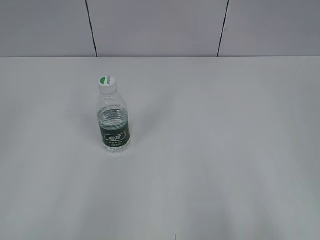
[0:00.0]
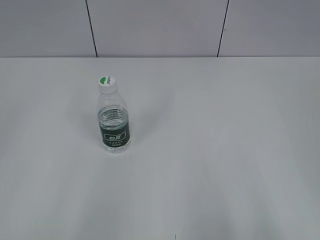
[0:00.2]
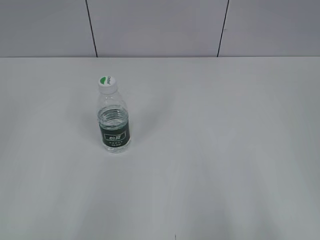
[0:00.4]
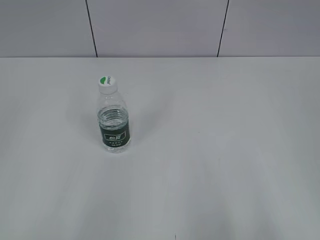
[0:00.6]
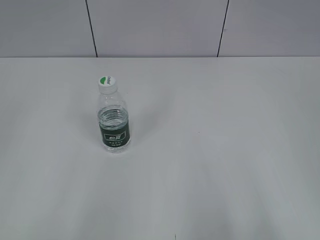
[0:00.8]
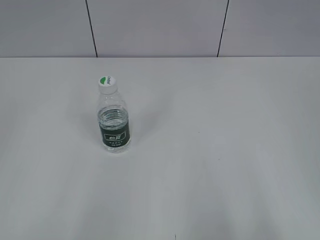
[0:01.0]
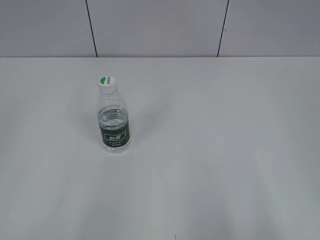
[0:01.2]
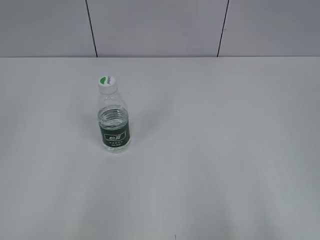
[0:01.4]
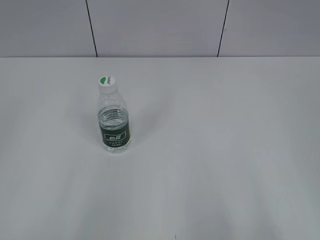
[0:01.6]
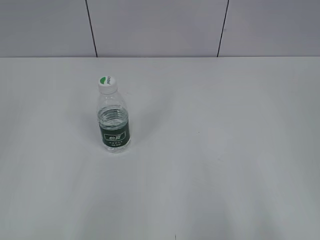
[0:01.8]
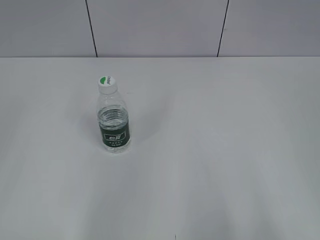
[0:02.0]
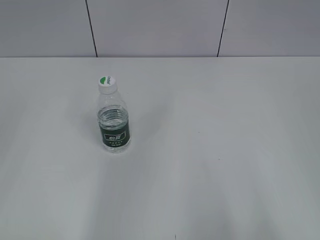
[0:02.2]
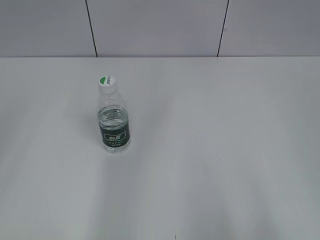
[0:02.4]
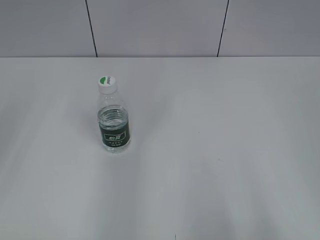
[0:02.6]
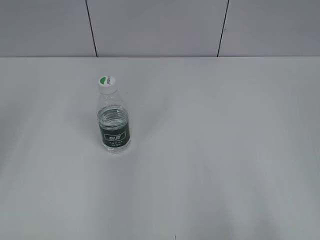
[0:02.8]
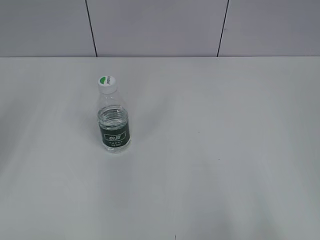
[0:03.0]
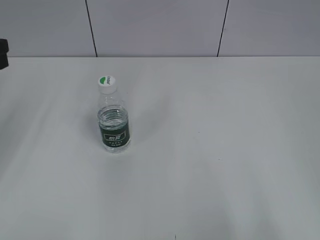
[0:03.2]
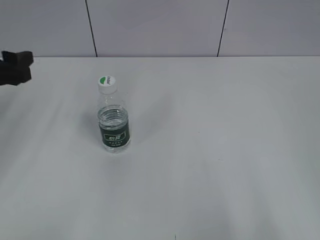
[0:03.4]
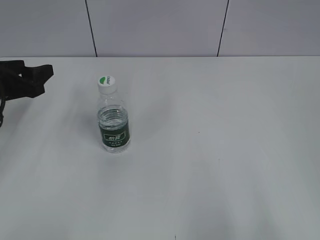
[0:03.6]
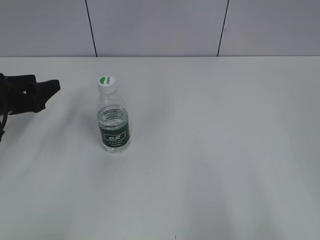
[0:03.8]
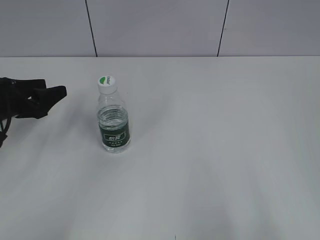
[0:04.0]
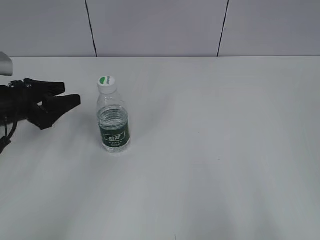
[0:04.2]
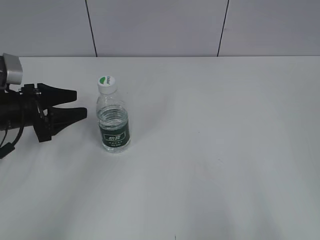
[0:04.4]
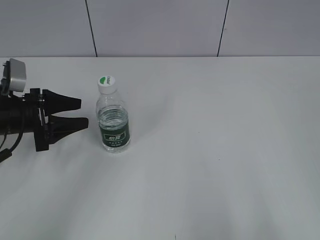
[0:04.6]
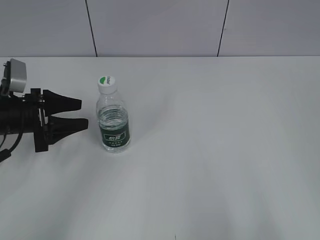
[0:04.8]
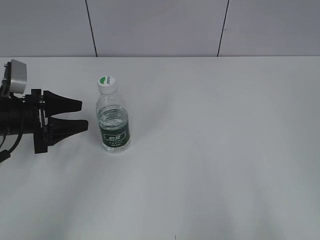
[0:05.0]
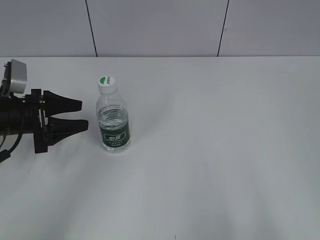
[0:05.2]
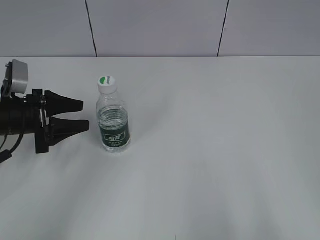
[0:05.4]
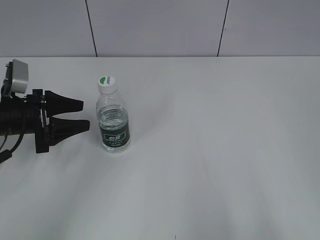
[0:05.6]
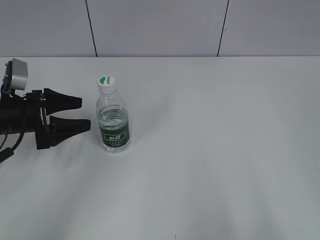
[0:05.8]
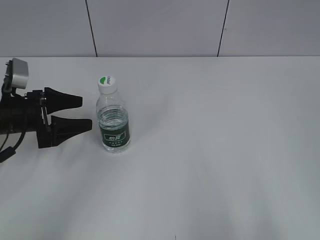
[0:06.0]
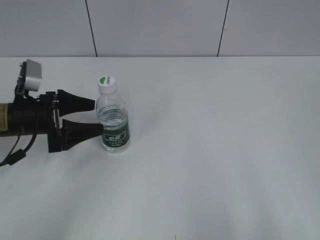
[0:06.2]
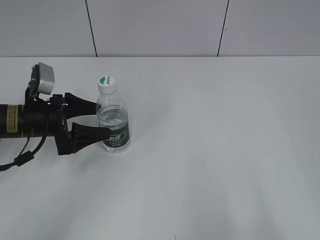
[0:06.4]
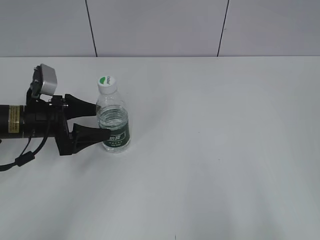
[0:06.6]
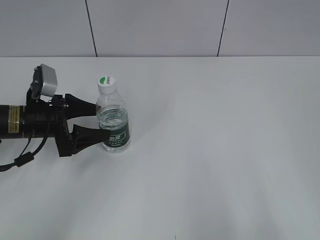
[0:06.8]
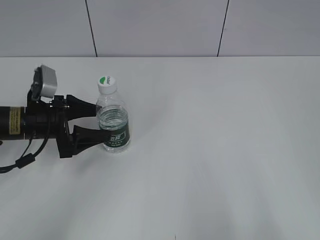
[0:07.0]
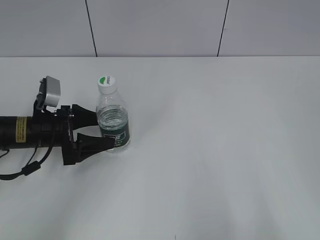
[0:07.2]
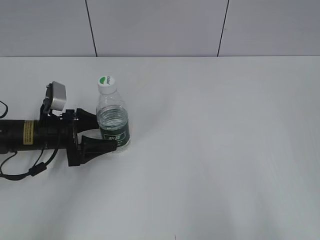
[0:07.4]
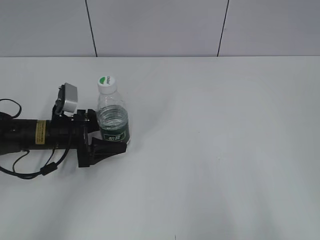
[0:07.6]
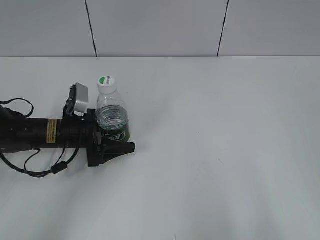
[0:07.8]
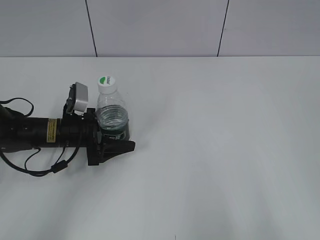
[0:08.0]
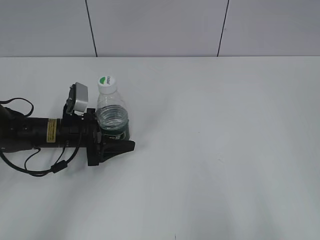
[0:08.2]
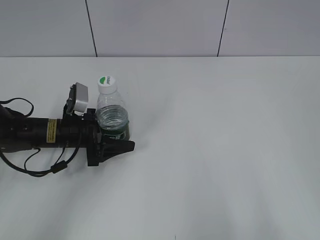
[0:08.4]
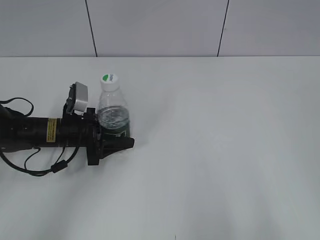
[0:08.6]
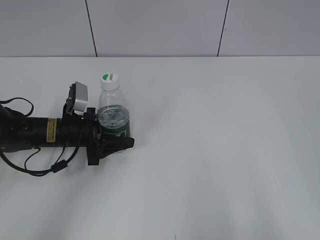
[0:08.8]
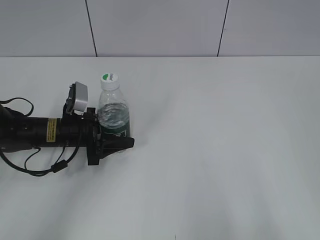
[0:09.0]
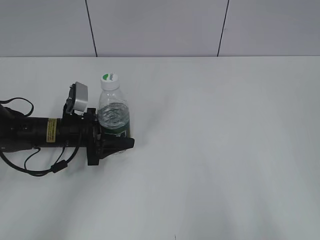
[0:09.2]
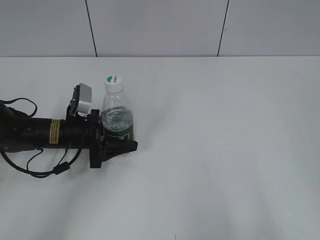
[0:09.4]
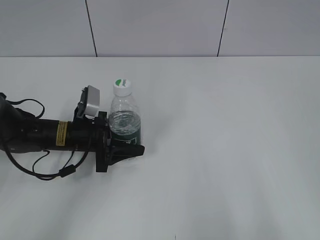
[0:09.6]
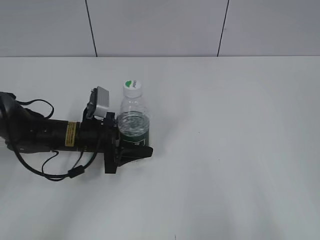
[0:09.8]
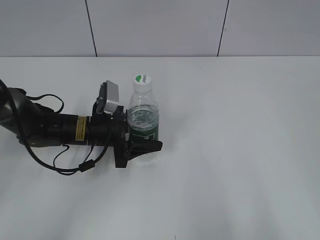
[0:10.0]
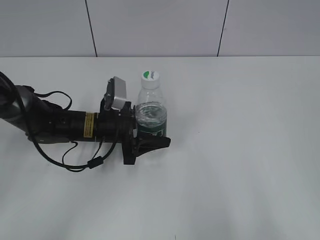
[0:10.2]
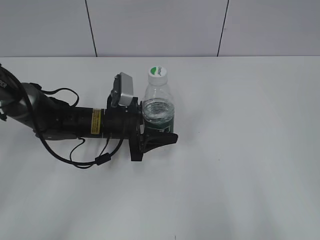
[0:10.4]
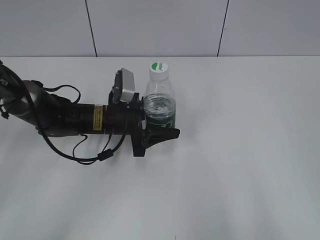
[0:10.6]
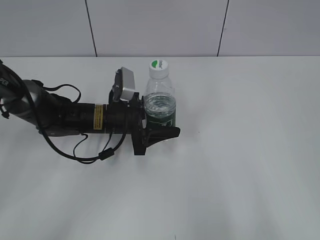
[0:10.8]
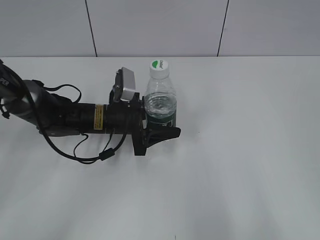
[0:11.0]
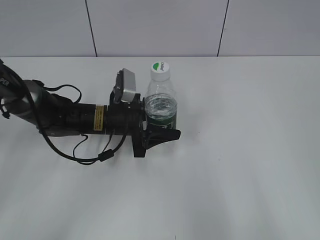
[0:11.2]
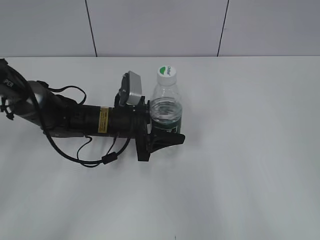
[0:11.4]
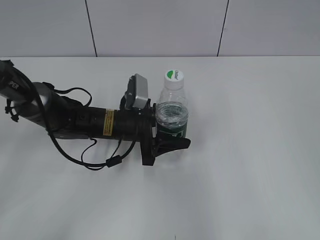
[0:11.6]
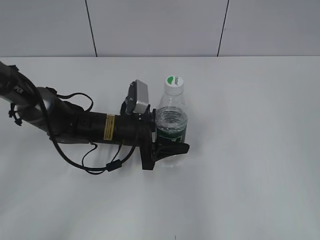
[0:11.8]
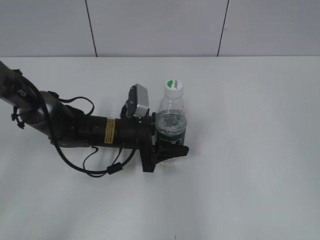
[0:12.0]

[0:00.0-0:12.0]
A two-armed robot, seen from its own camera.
Step, 0:00.0 to 0:08.8: Grasp the bottle and move it to the center of the table with the left gripper.
0:03.0 to 0:04.4: The left gripper heads downward and forward, covering some 20 cm.
0:04.4 to 0:06.0: The left gripper opens its fingers.
0:06.0 to 0:07.6: The left gripper moves downward and to the right, about 10 cm.
0:07.6 to 0:09.0: The left gripper closes.
0:09.0 to 0:10.4: The left gripper moves to the right, approximately 10 cm.
0:10.4 to 0:12.0: The right gripper goes roughly 10 cm forward.

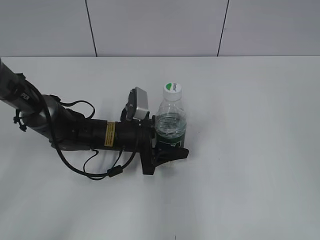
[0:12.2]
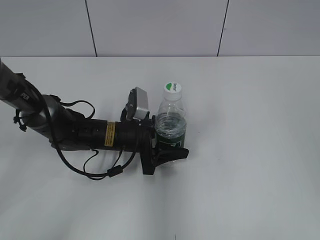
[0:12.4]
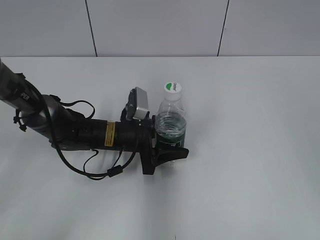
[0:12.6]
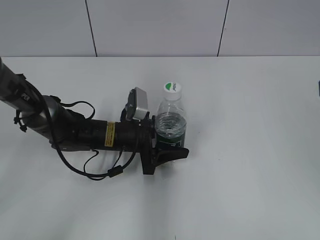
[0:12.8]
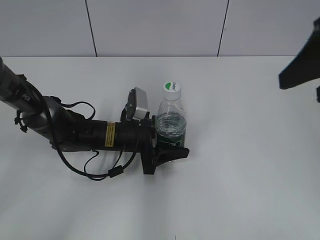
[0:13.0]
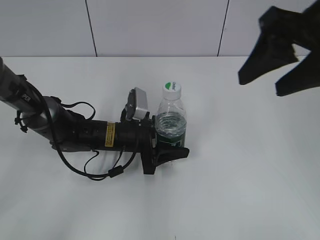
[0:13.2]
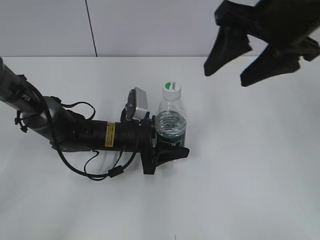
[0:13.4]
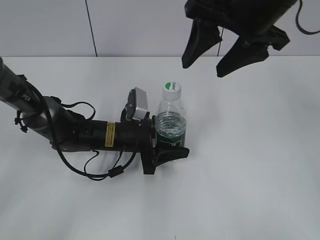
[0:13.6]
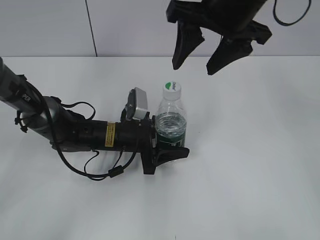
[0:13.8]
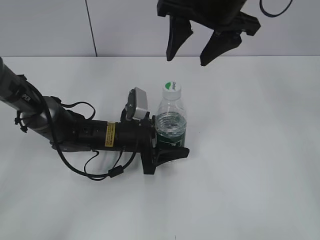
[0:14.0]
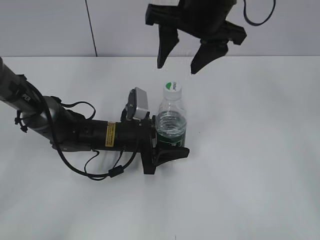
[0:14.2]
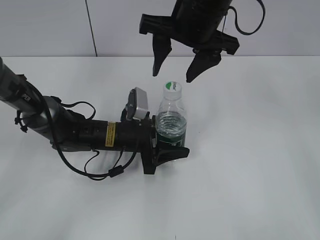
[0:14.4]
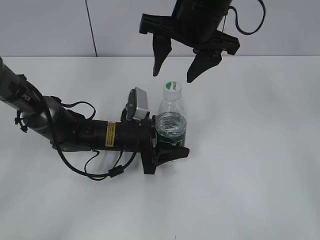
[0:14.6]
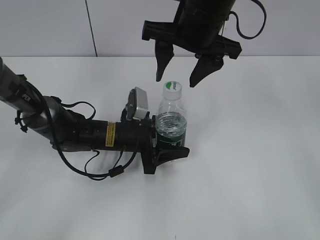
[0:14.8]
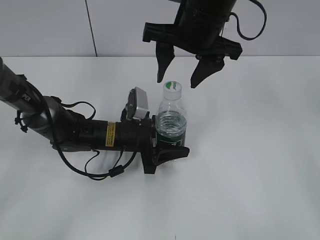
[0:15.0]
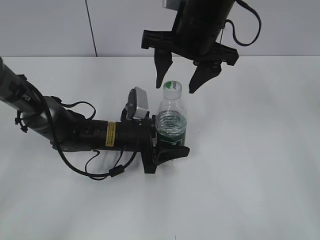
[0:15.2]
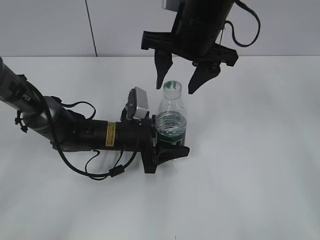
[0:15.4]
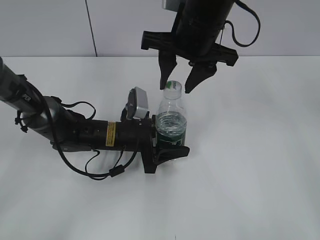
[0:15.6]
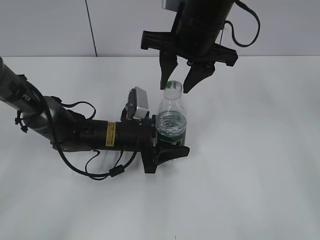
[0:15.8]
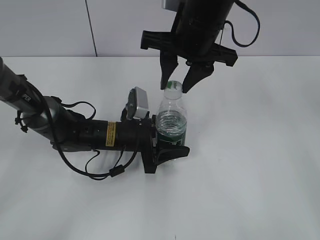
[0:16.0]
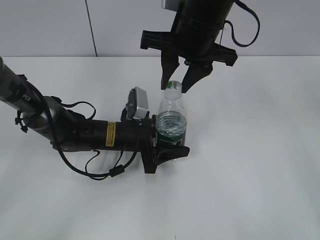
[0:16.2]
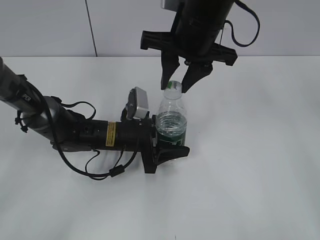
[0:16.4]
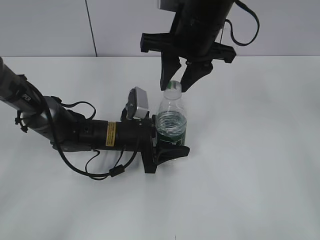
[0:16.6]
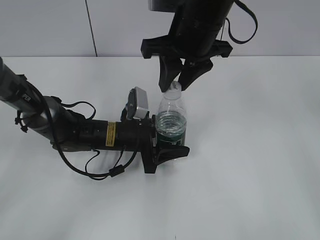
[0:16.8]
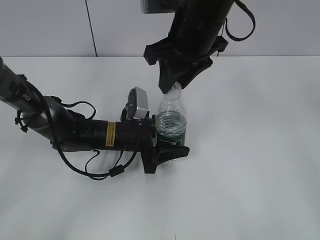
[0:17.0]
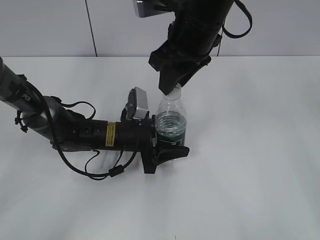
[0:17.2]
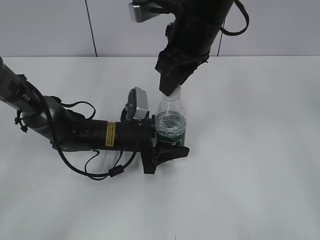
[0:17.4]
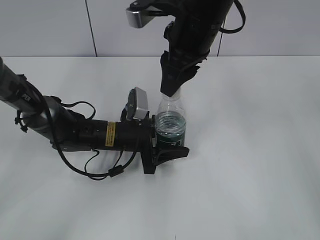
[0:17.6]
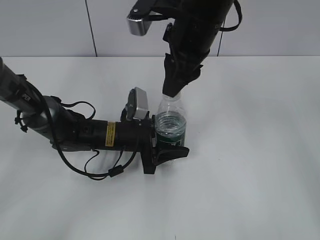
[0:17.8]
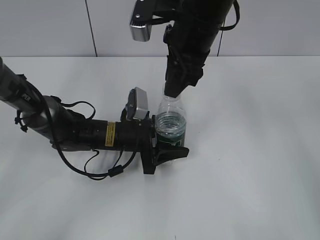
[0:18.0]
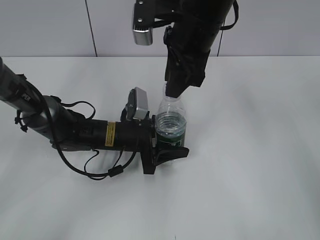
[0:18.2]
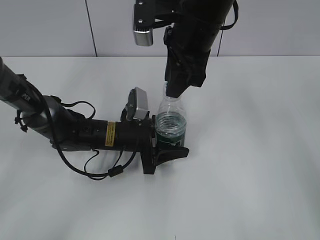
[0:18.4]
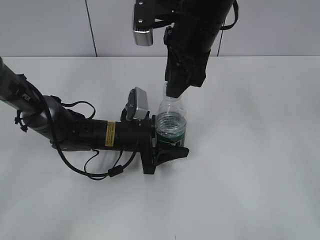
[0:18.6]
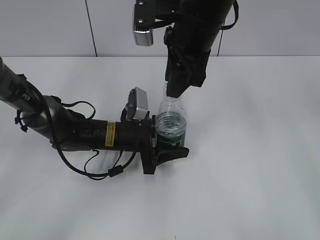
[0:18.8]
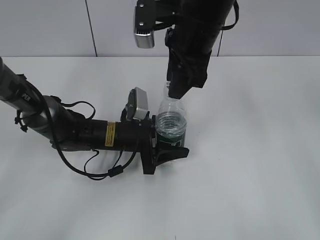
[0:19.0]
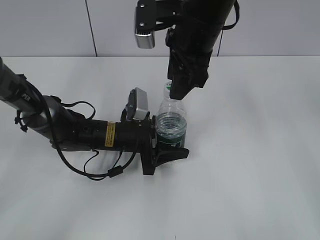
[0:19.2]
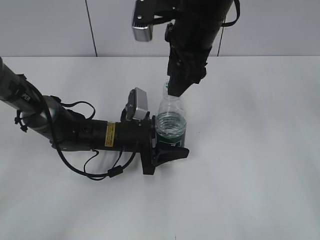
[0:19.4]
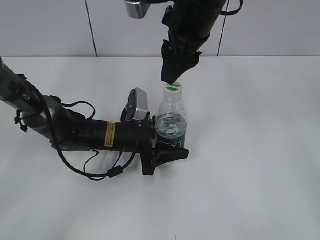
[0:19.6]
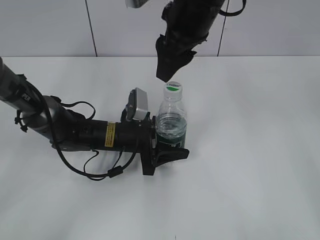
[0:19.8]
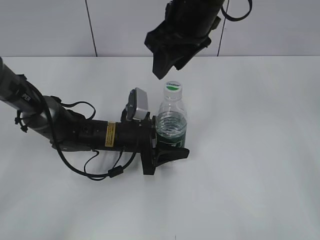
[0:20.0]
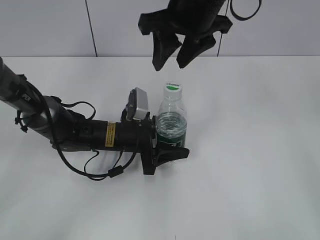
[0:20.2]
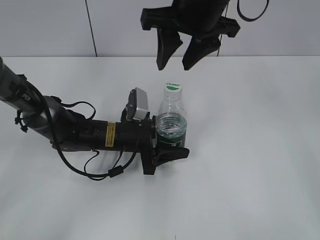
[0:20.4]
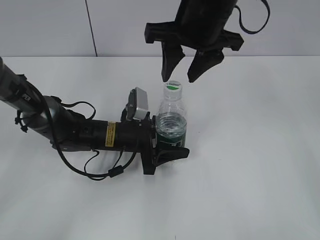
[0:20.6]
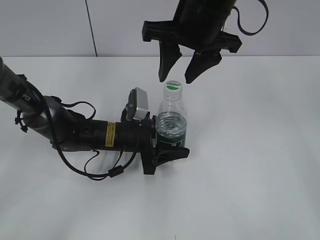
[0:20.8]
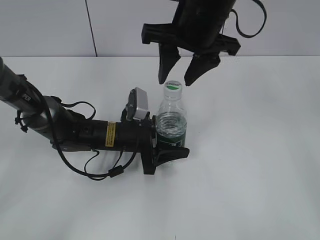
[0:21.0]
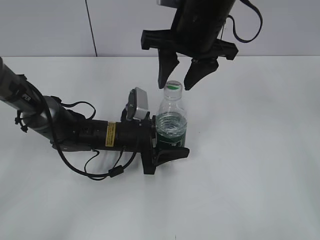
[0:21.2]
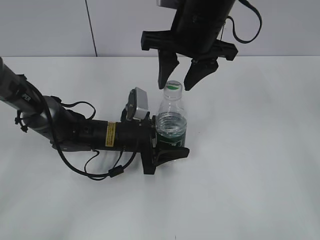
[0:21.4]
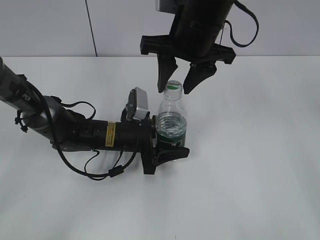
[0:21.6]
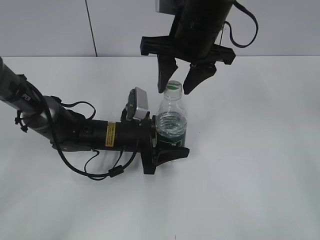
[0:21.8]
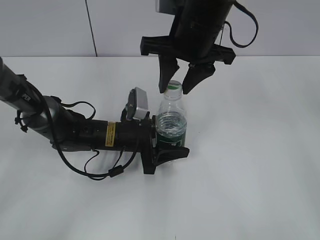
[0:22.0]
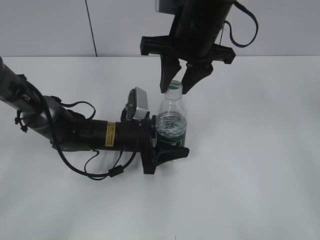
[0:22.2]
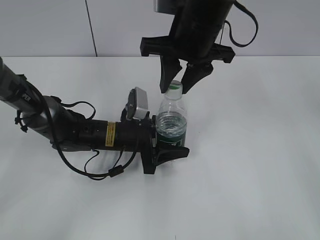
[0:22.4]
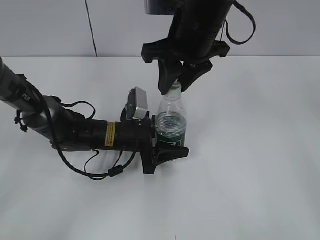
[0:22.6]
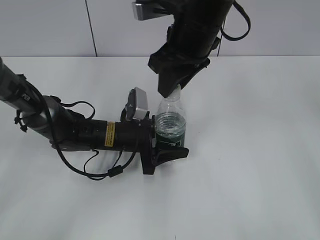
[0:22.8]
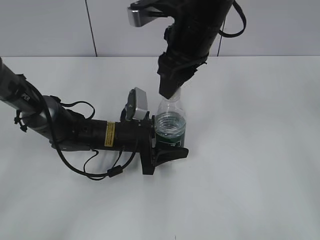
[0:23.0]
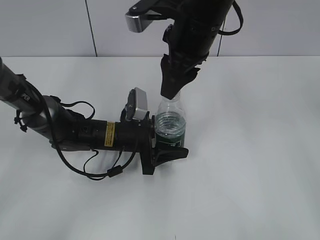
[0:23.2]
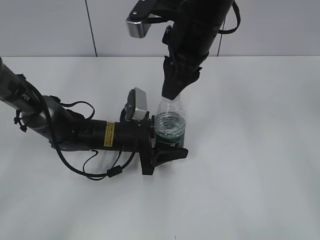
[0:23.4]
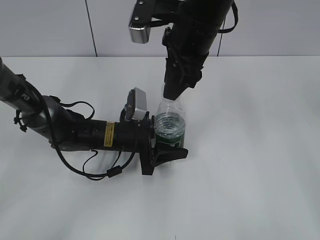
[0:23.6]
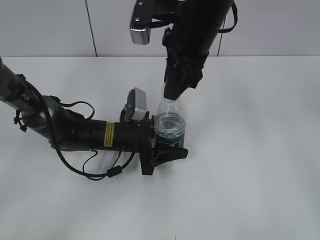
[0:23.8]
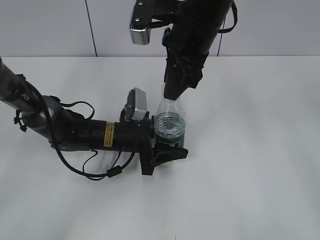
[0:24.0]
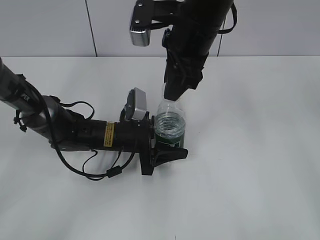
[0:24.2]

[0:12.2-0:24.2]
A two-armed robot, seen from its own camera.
0:12.2 to 0:13.8: The right gripper heads forward and to the left, covering some 30 cm.
0:13.8 to 0:15.2: The right gripper changes place by roughly 5 cm.
0:15.2 to 0:16.6: The right gripper closes its fingers.
0:18.2 to 0:19.8: The right gripper opens.
0:21.2 to 0:22.6: The right gripper closes up.
